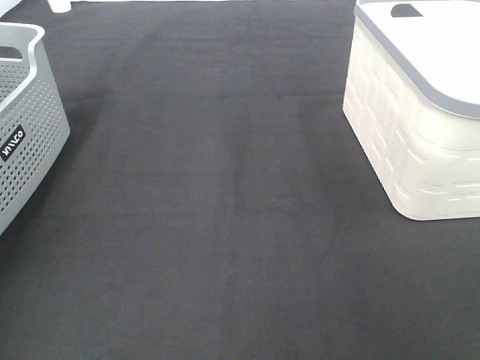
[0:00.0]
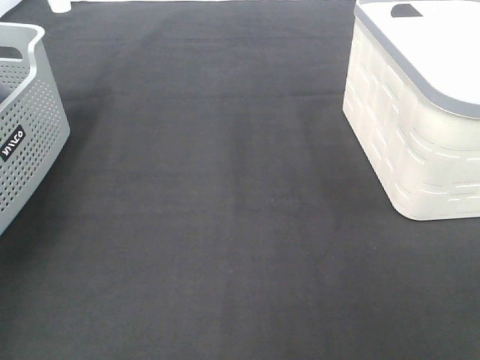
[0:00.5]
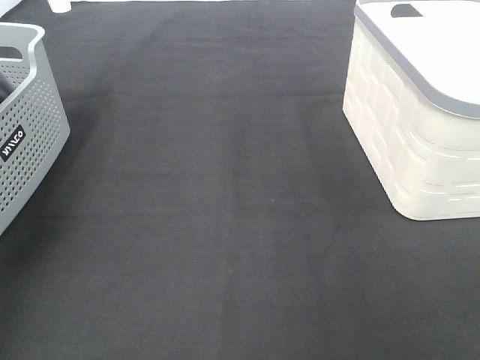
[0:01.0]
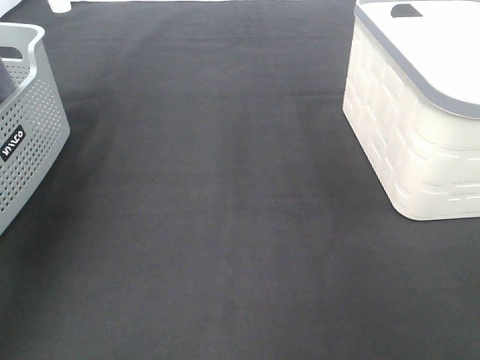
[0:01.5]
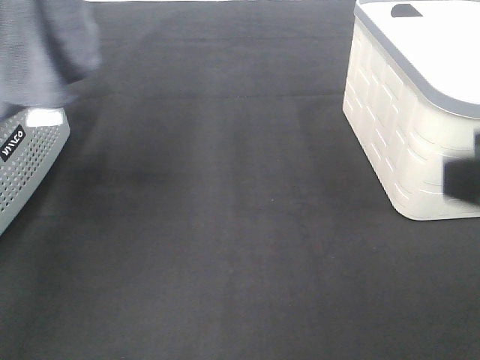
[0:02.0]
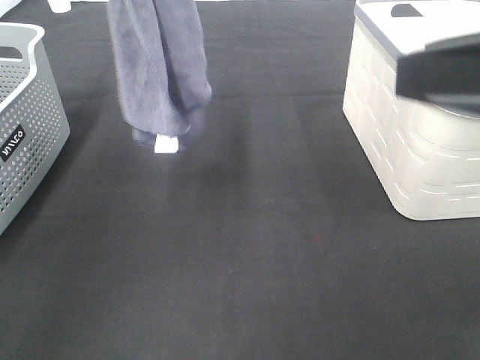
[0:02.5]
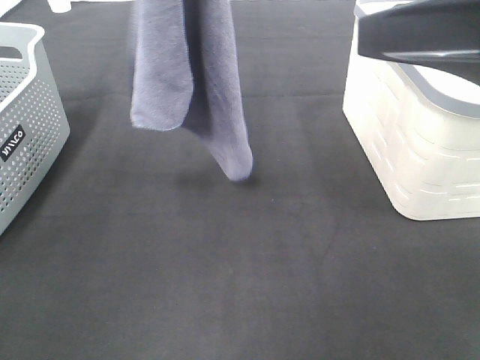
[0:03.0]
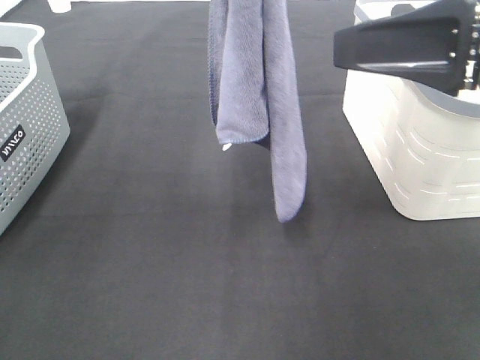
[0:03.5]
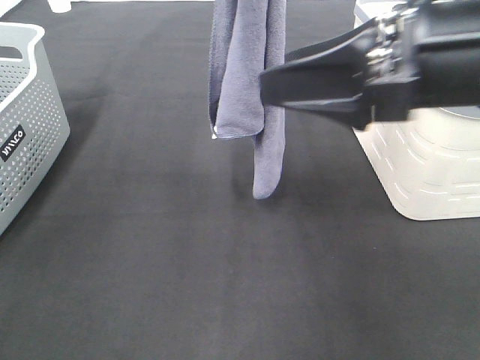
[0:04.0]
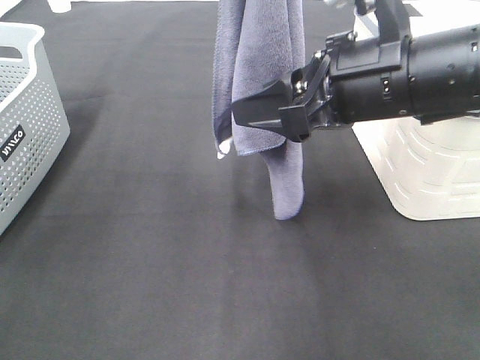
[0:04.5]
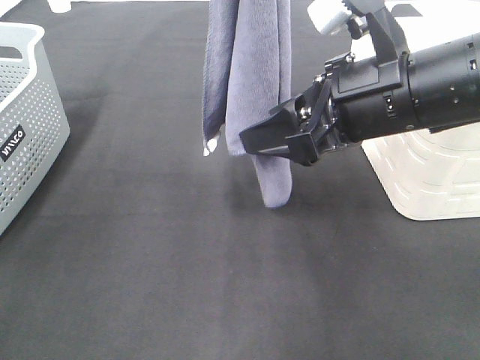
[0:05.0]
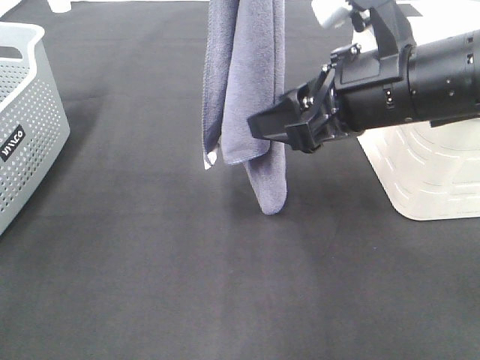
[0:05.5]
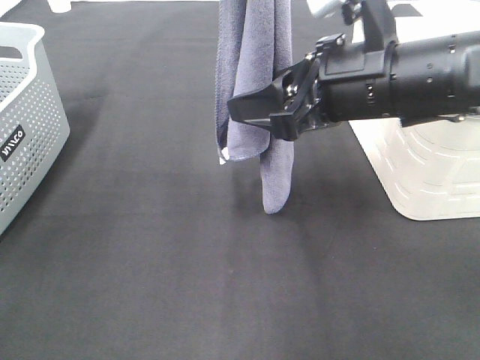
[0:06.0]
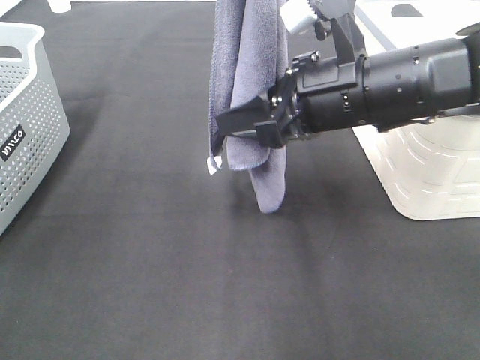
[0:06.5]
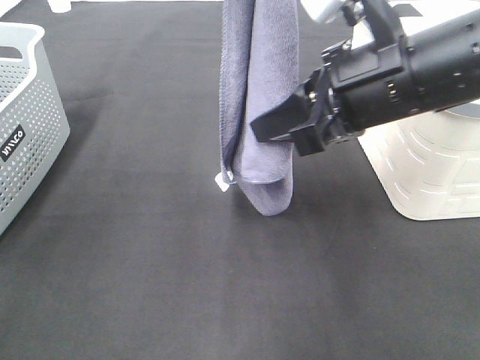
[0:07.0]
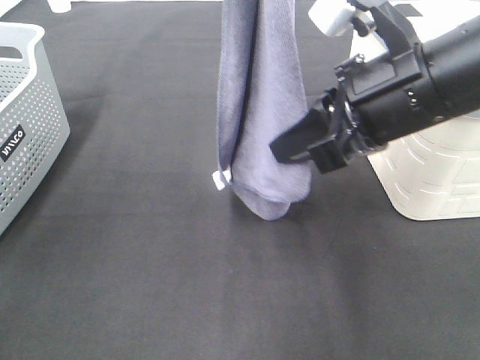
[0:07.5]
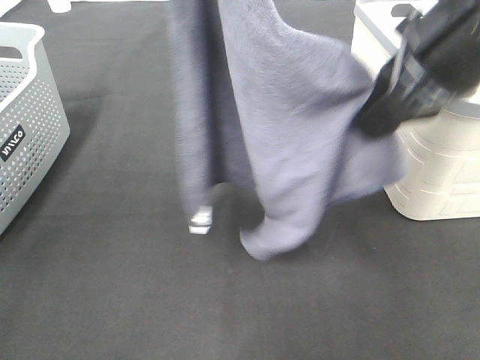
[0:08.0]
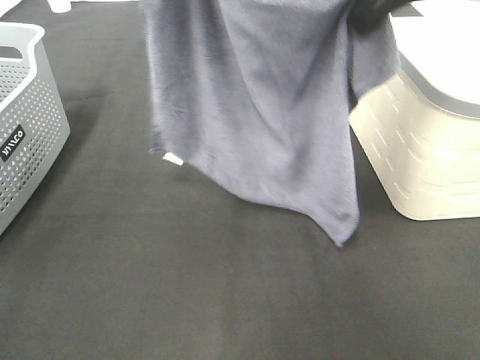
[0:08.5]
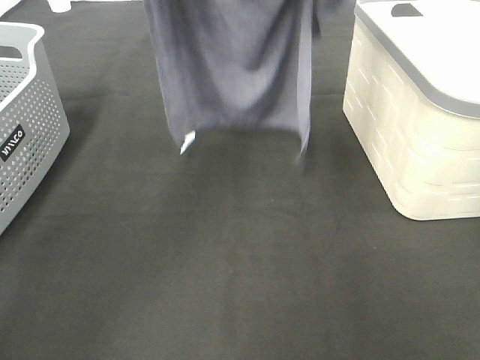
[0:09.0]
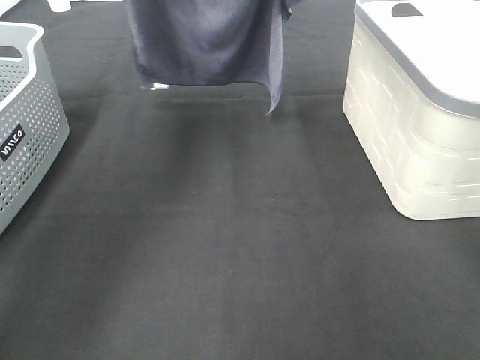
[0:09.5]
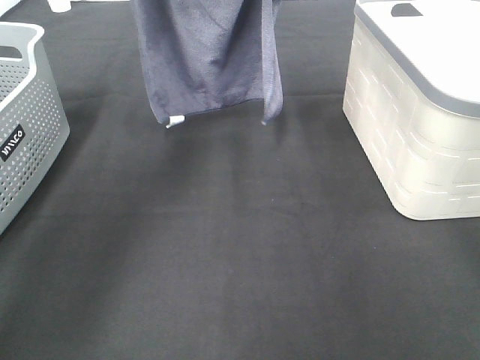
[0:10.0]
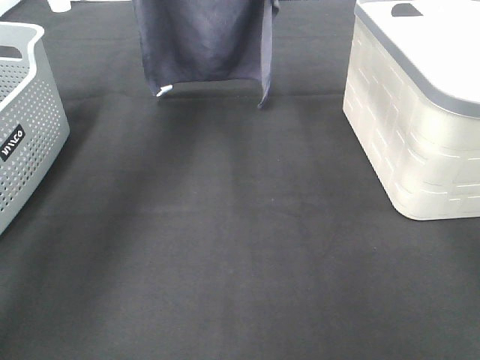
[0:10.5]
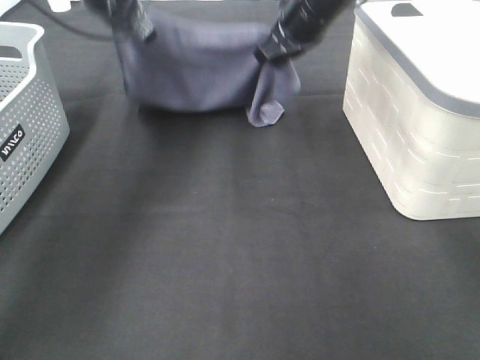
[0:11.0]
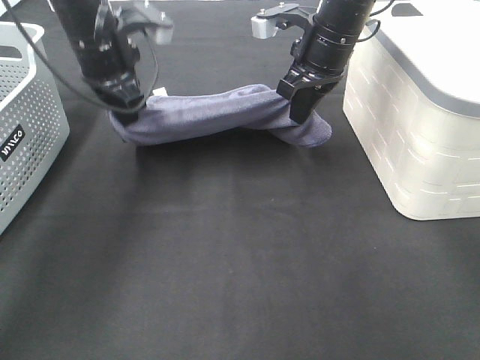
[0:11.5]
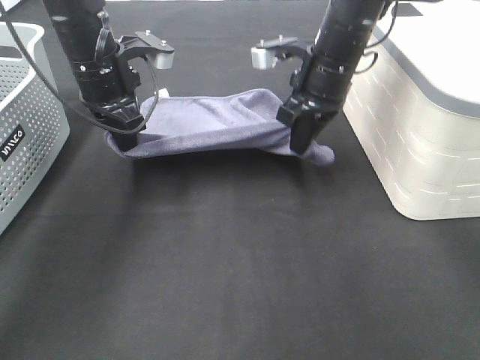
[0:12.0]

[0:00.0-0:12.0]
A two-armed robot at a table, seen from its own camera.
Task of the whole recording: Remove the towel and place it.
Step, 1.0 to 5.0 s: Right hand: grab a corner of the grey towel and straighten it.
Step, 5.5 to 9.5 s: Right hand: spread the grey towel flat on the table.
Step, 5.5 to 10.0 s: Left hand: spread the grey towel flat on the table.
0.0 to 2.0 s: The right gripper travels forward, upward and to the left by approximately 10 cm. The left gripper heads upward and to the right, covering about 25 cm.
2.0 to 4.0 s: The right gripper heads forward and to the left, covering approximately 15 cm; the left gripper travels to the right and downward by approximately 20 cm.
4.0 to 6.0 s: The right gripper goes roughly 5 cm forward.
6.0 to 8.0 s: The right gripper shifts approximately 10 cm upward, and closes its fingers.
8.0 to 10.0 s: The left gripper travels forward and downward by approximately 20 cm; the right gripper moves forward, approximately 20 cm.
10.0 to 12.0 s: The two grippers go some 15 cm downward.

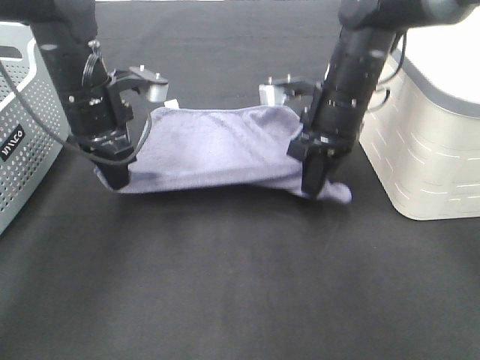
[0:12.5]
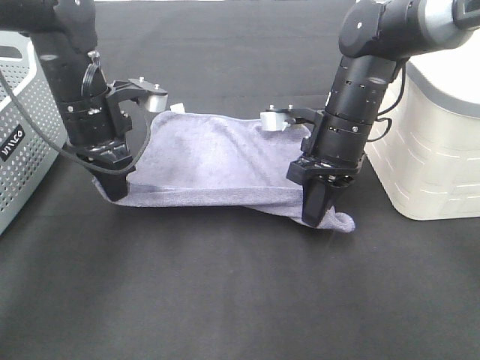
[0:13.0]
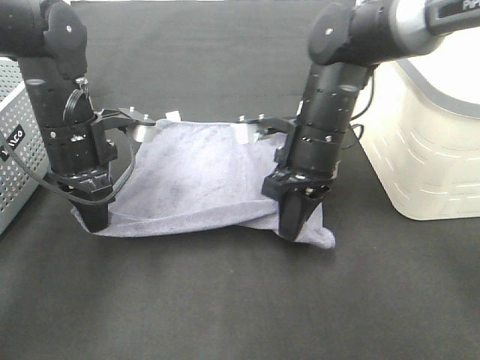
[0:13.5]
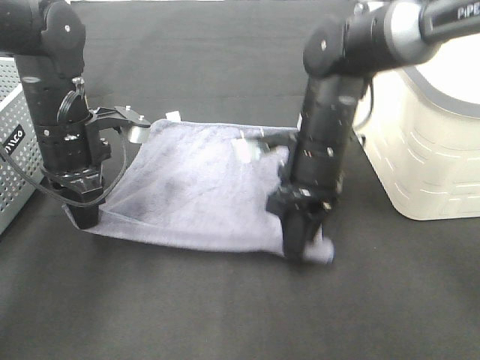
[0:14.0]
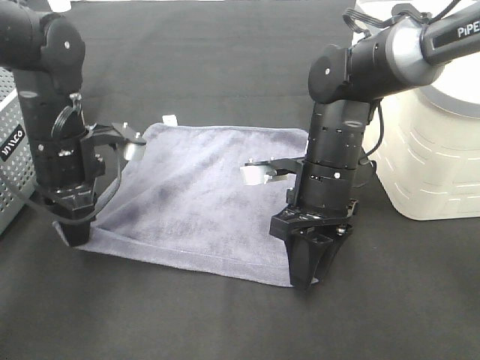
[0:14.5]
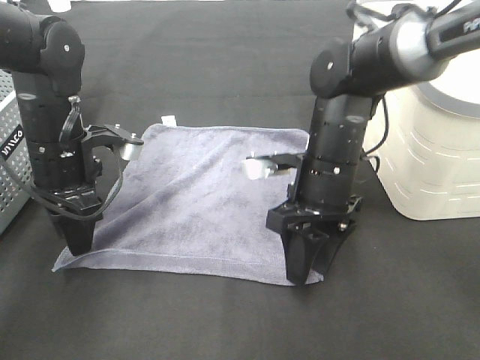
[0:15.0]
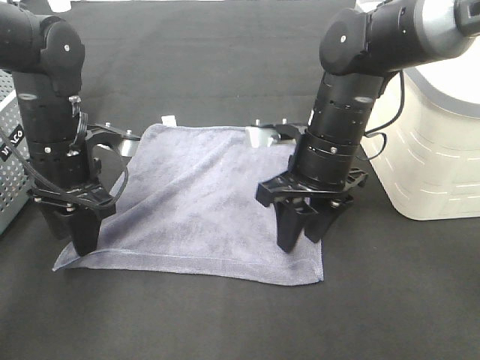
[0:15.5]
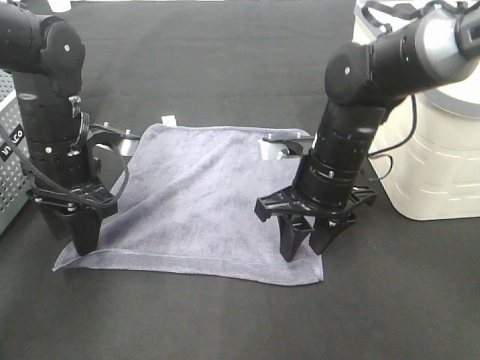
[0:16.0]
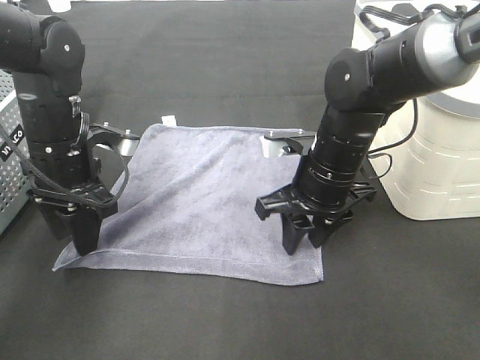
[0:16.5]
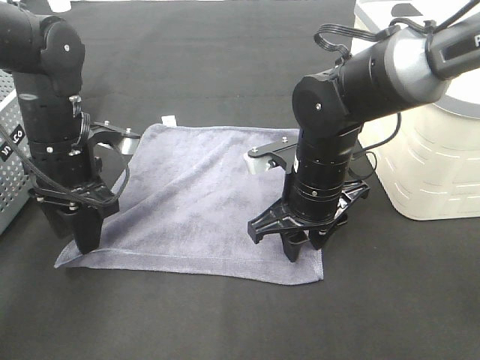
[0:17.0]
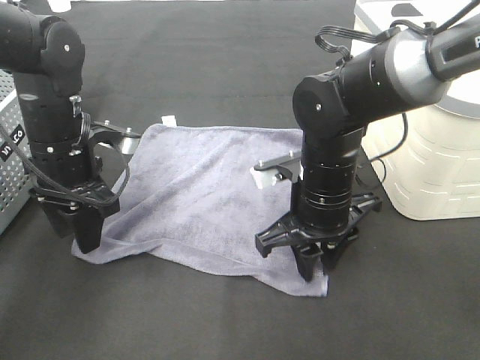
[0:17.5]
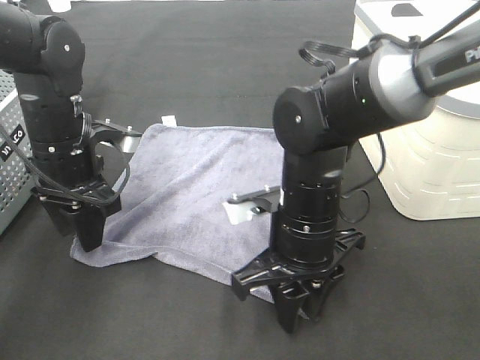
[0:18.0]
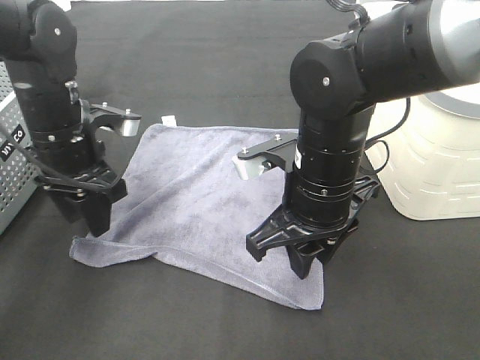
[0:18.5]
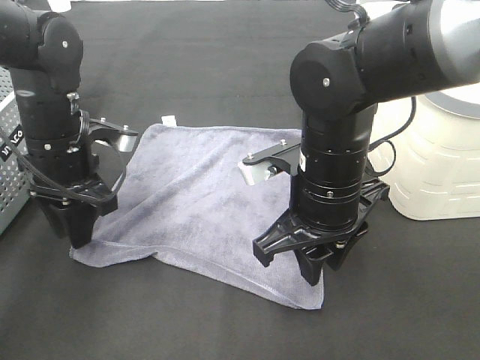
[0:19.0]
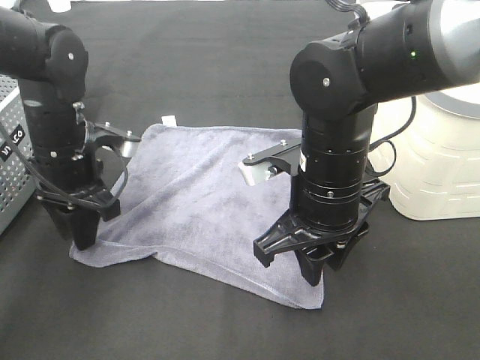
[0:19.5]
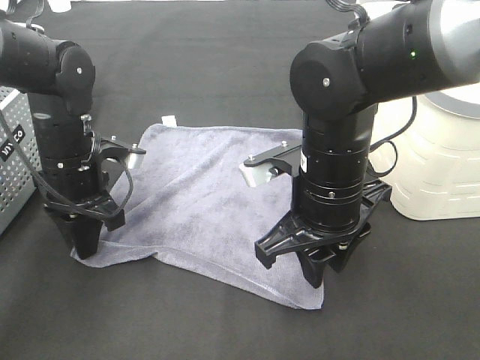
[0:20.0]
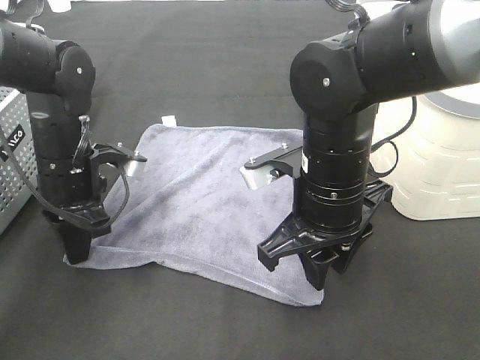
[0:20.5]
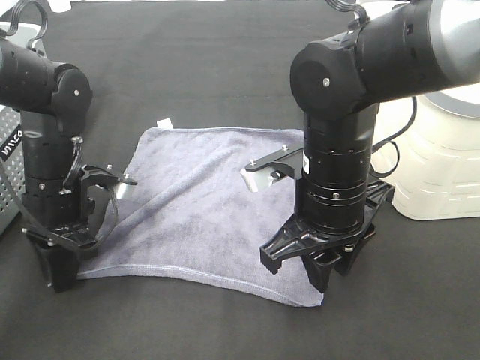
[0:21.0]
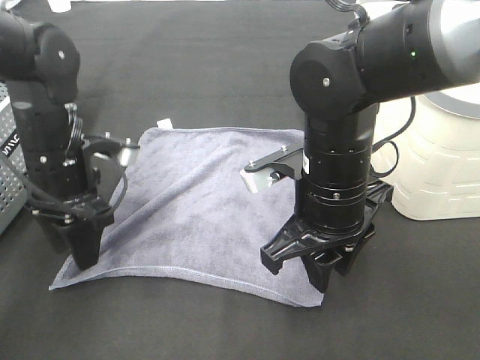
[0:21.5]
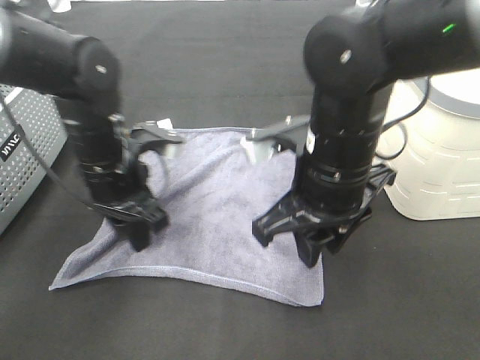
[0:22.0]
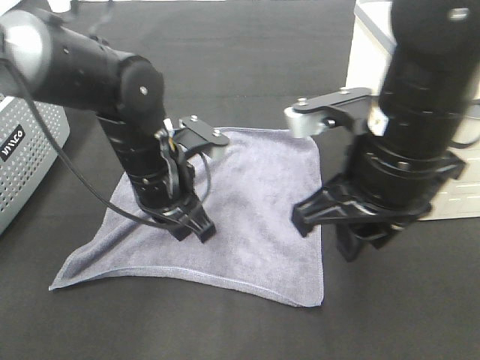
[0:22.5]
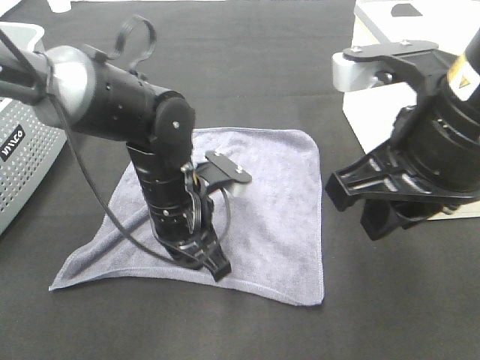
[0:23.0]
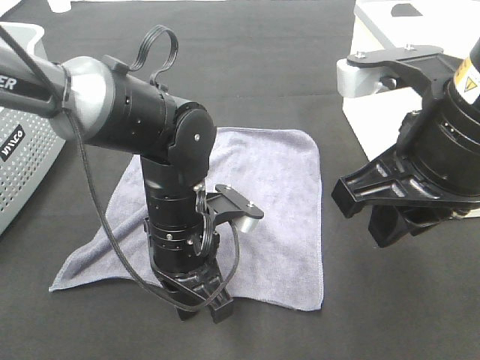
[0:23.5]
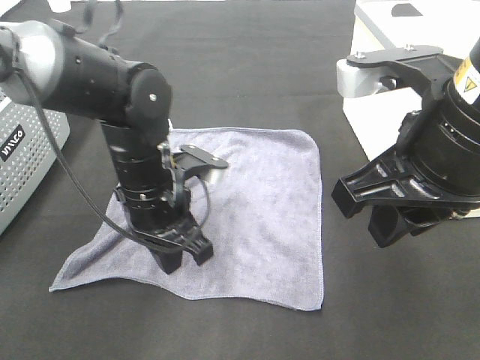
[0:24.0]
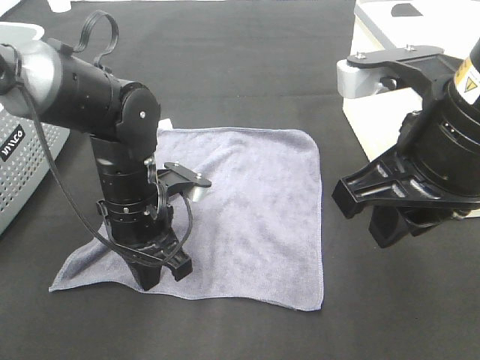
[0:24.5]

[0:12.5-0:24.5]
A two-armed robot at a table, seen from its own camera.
Task of the whole recording: Remove the towel and place it.
12.5 to 14.5 s: The right gripper is displaced backward by roughly 5 cm, and opens its fingers. Meanwhile the left gripper moves about 5 cm.
14.5 to 16.5 s: The left gripper opens its fingers.
16.5 to 18.5 s: The right gripper heads backward, covering some 5 cm.
18.5 to 20.5 s: The left gripper closes up.
20.5 to 22.5 s: The left gripper is displaced to the right by some 10 cm, and opens, then closes again; the right gripper moves upward, roughly 10 cm.
22.5 to 24.5 s: The right gripper moves about 5 cm.

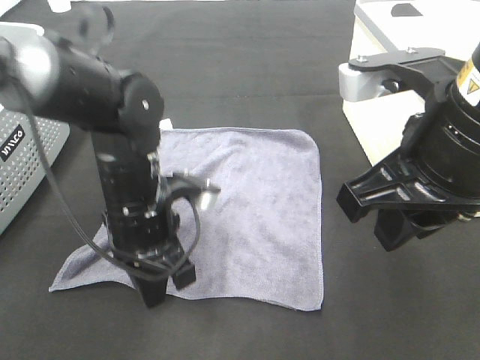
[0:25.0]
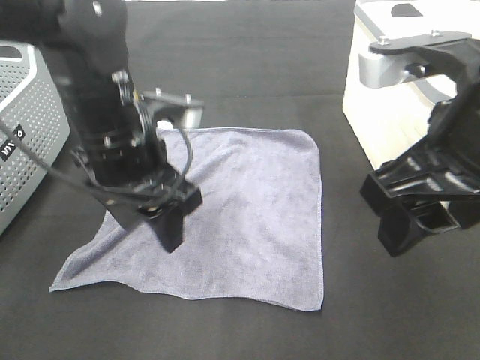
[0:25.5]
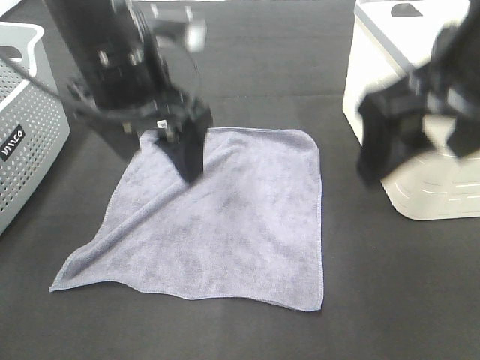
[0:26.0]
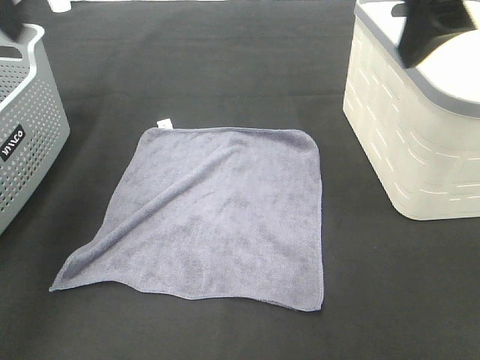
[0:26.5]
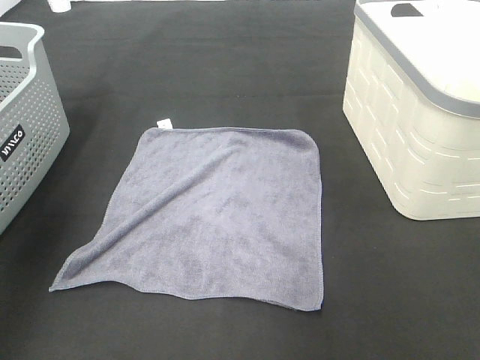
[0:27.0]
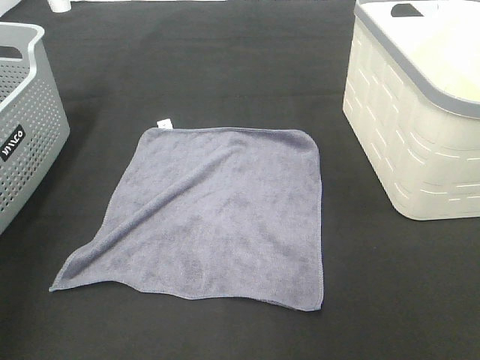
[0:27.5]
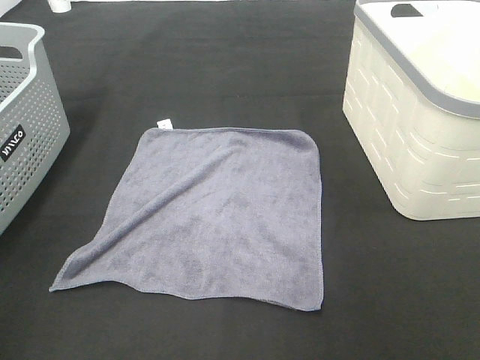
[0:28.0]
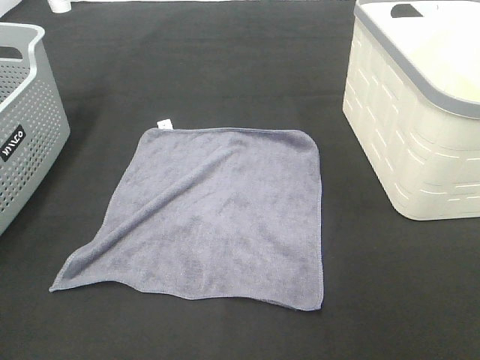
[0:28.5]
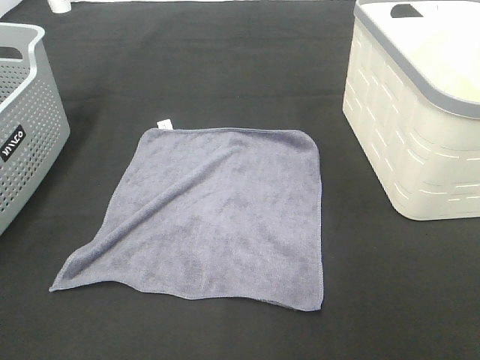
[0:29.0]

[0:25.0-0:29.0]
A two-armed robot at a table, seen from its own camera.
Task of the whole recording: Remove the towel and place it.
25.0 to 27.0 s: The left gripper heads upward and to the left, covering roughly 35 cm, and opens. Meanwhile the right gripper is displaced to the right, upward and forward by some 20 cm, and opens up.
27.0 to 29.0 s: The left gripper heads backward, covering some 25 cm.
